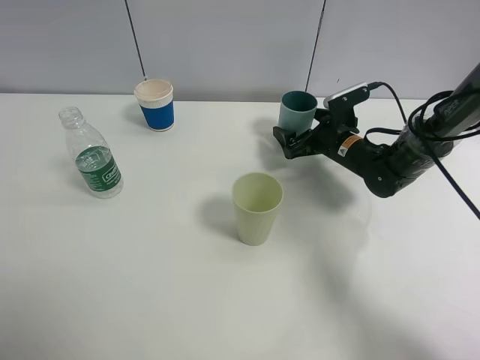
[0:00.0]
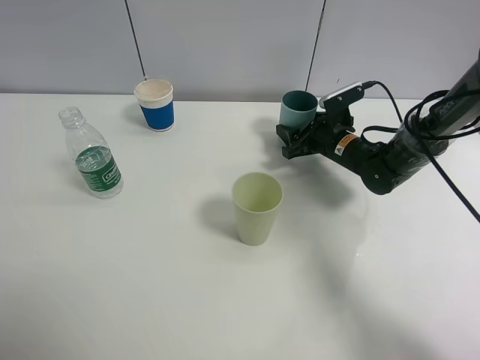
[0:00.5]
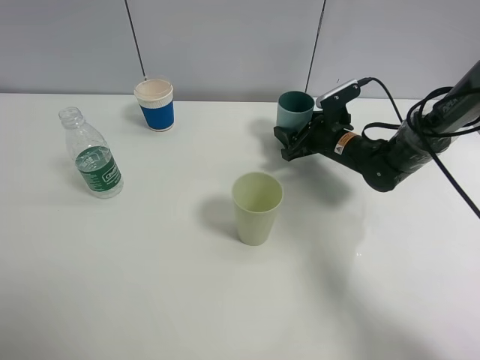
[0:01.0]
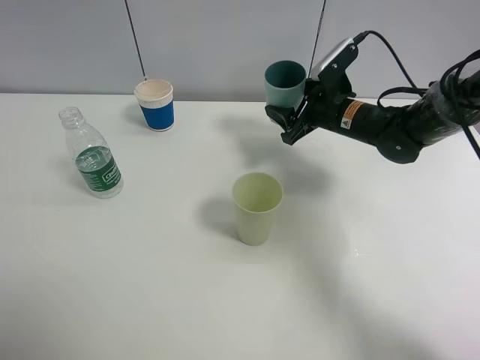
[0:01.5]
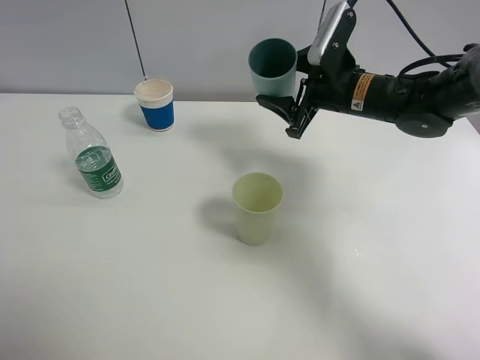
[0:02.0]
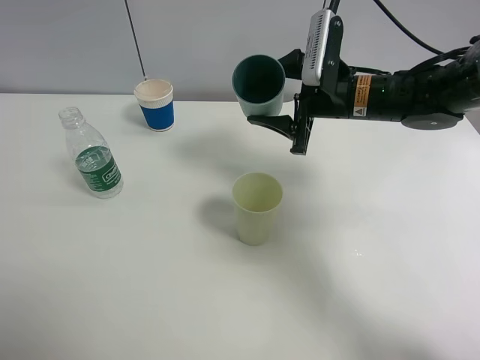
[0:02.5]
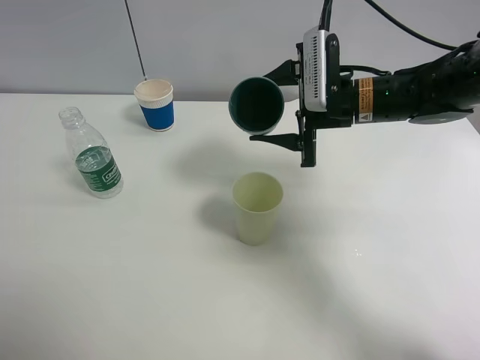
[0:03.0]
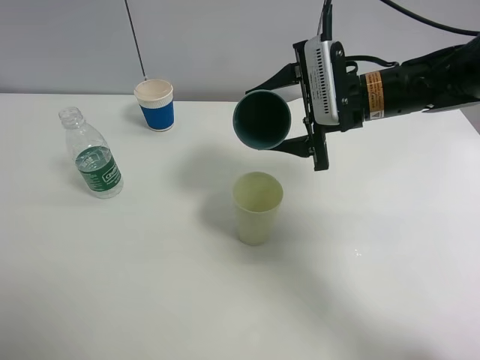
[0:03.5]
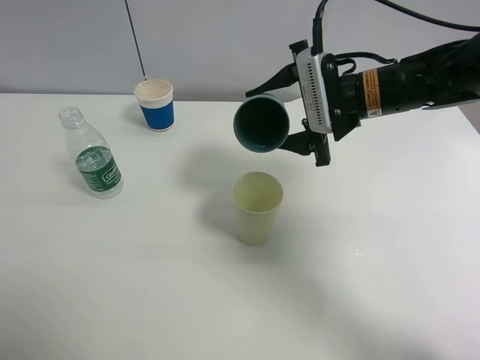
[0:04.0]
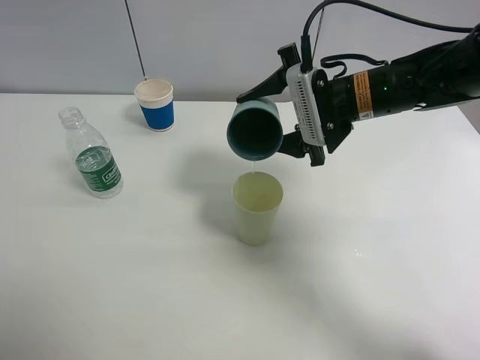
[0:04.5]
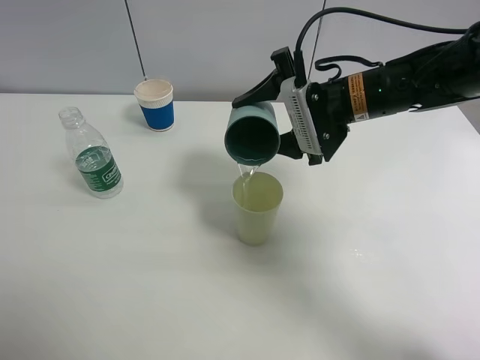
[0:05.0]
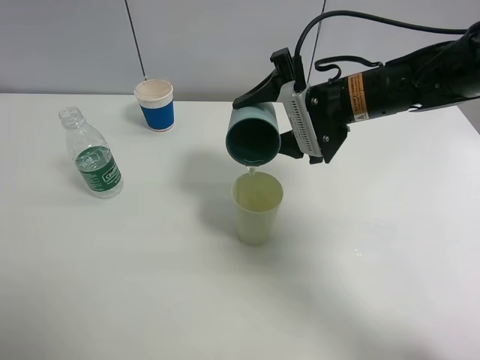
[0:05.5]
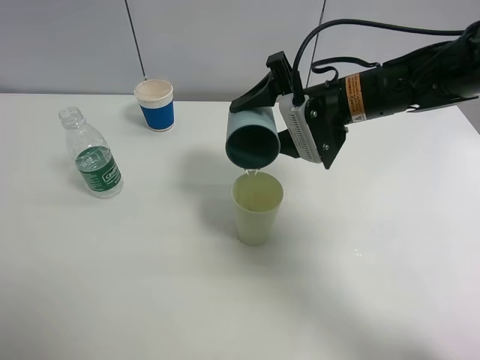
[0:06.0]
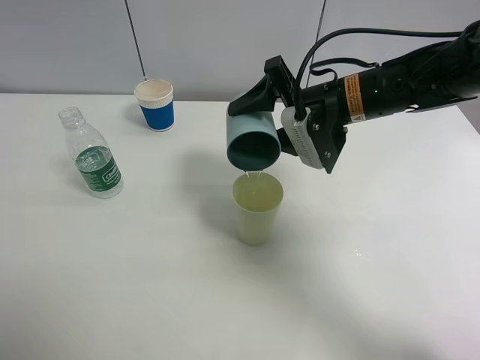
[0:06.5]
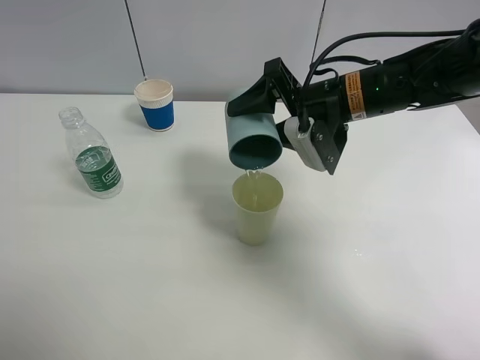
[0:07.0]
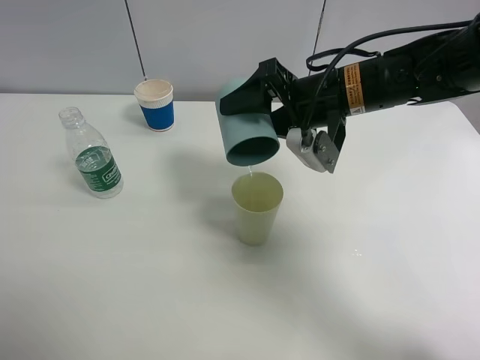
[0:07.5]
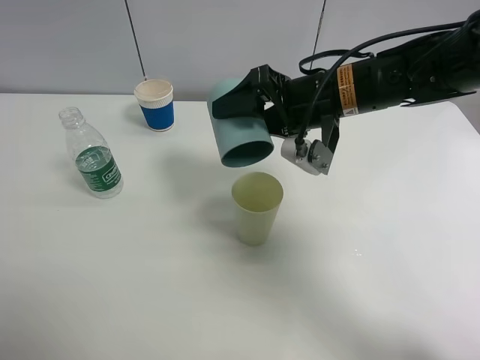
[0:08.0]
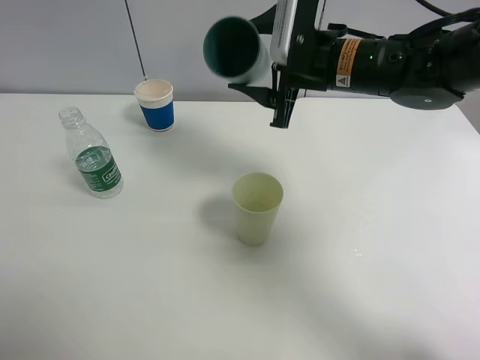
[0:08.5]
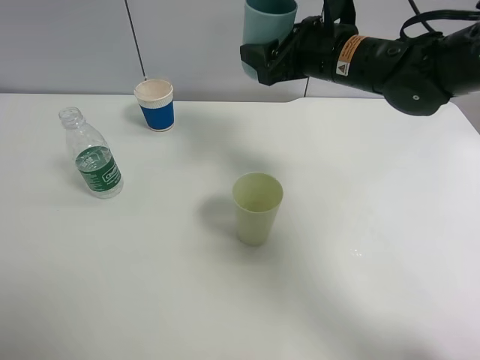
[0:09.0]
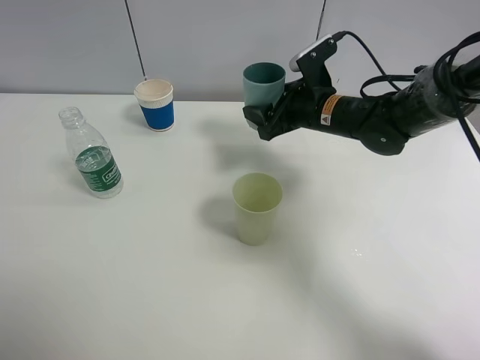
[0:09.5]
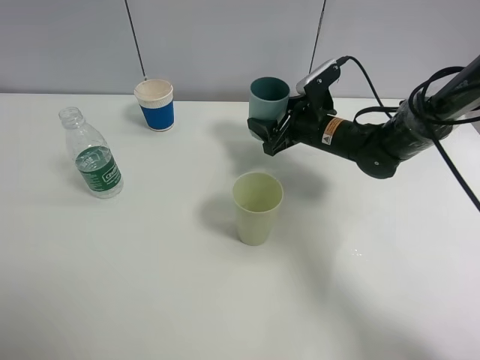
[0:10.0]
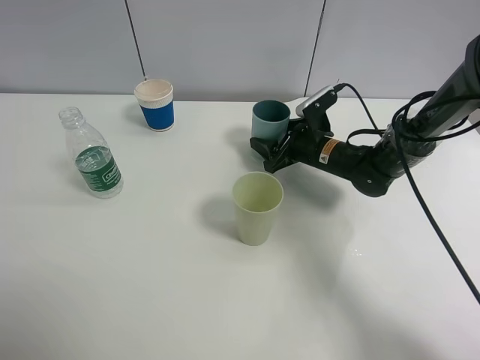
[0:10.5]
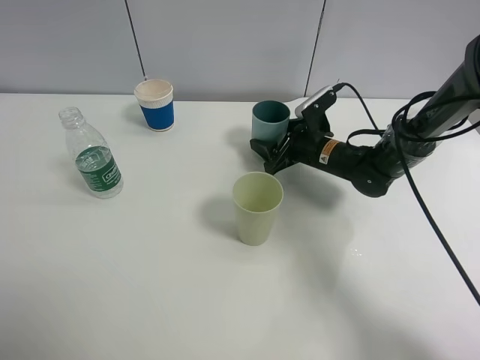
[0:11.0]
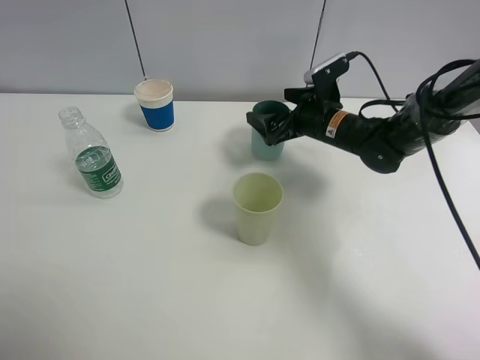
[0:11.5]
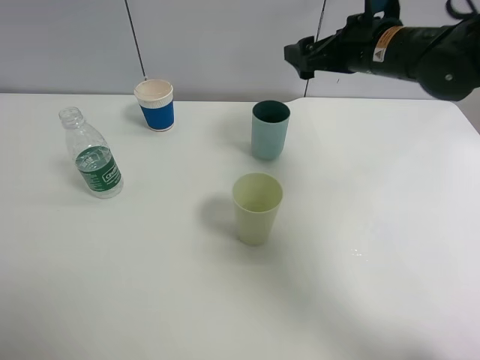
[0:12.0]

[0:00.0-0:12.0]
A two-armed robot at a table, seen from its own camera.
Task of the whole recording: use a clamp to hold the bottle of the drink, pour the beverage into a random cup, then clamp the cup containing the drink and pour the drink into another random cup.
Step, 0:01.5 to 0:08.0: Pour water into the green plastic cup with right gripper.
Step, 0:08.5 to 0:11.0: Place the blue plastic cup on the table with right gripper.
0:00.0 to 0:02.0: The right gripper shifts some 10 cm upward, and closes.
0:02.0 to 0:04.0: The right gripper shifts by approximately 5 cm.
0:08.0 to 0:10.0: The right gripper shifts roughly 15 cm downward and forward.
0:10.0 to 0:12.0: The right gripper moves upward, some 15 cm, and opens.

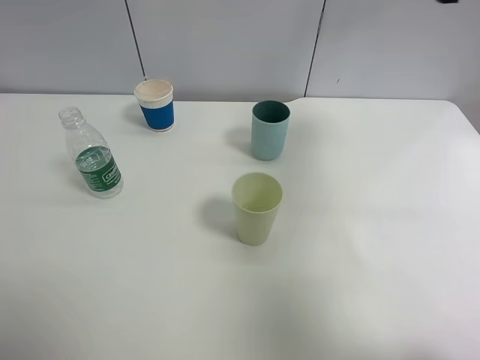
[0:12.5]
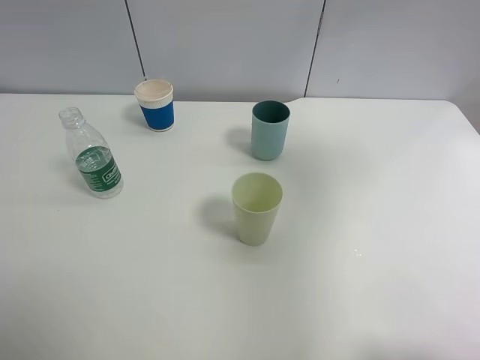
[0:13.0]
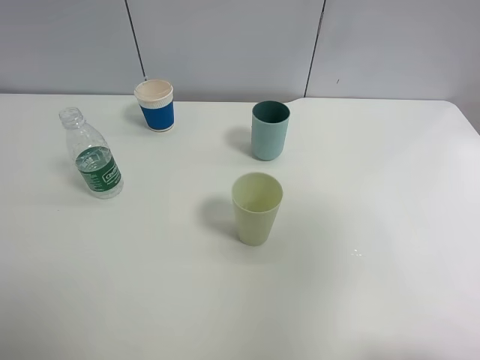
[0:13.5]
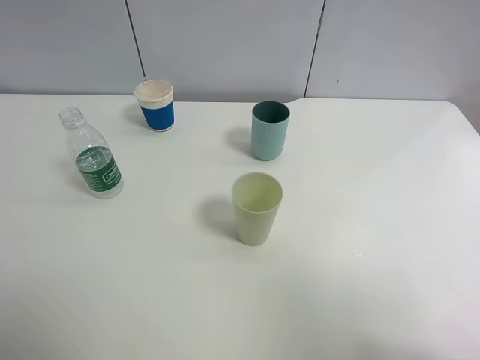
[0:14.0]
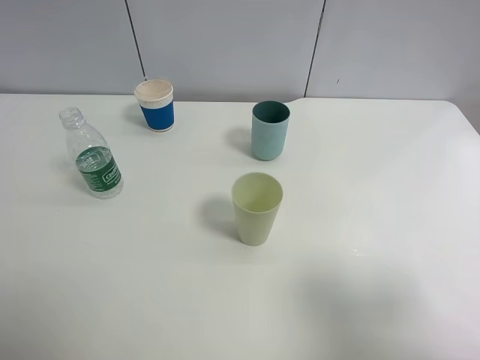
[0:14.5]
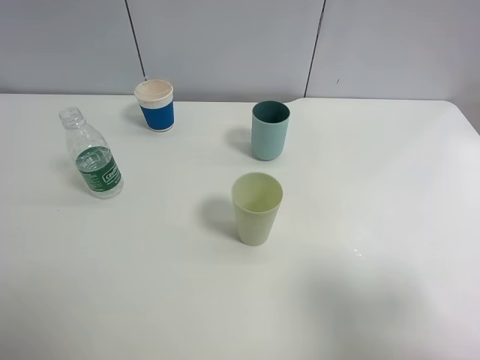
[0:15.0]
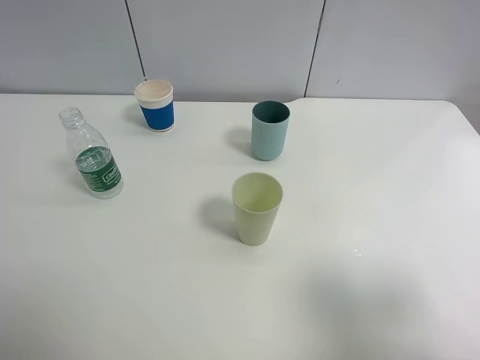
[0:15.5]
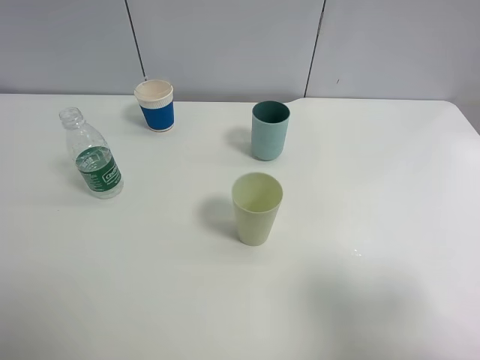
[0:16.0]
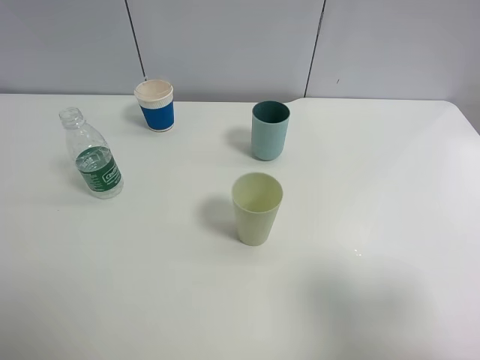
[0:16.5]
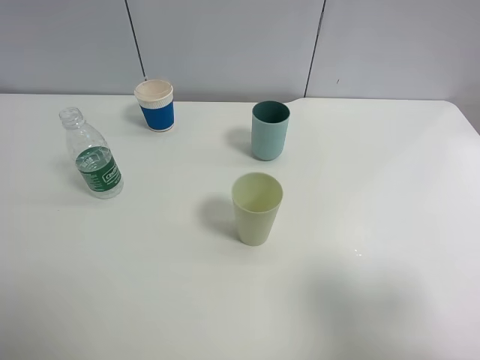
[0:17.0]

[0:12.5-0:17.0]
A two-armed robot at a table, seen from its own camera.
Task of the whole recording: use a clamp to hold the bottle of the drink, pour the beverage into a random cup, then clamp the cup containing the drink and pour the drink into another random cup.
0:12.5 to 0:14.5: The right gripper heads backward, covering approximately 30 cm.
0:14.5 to 0:17.0: Both grippers stay about where they are.
